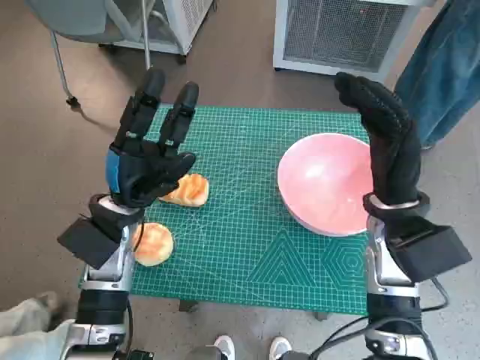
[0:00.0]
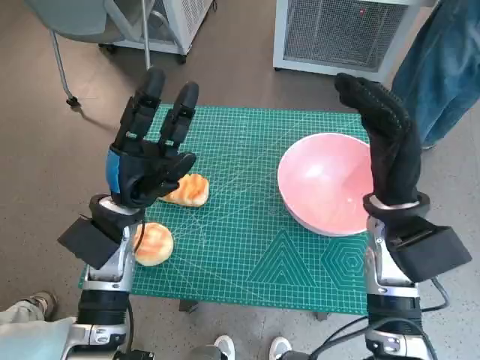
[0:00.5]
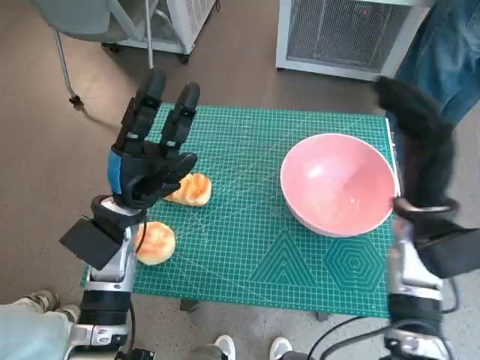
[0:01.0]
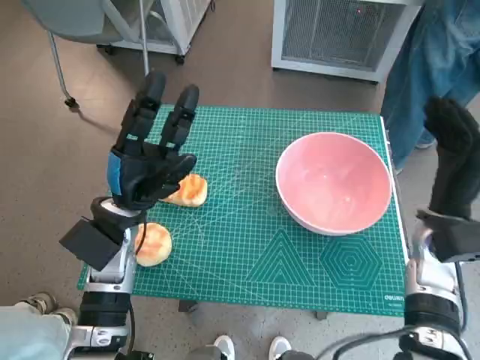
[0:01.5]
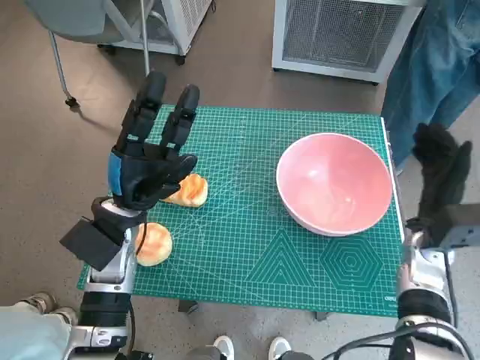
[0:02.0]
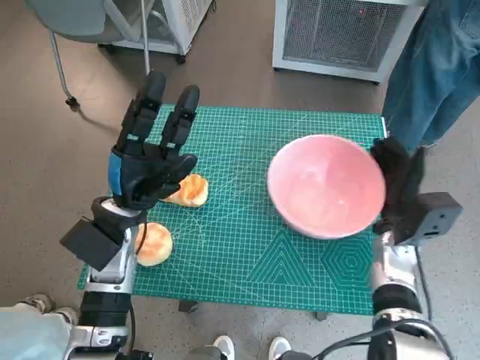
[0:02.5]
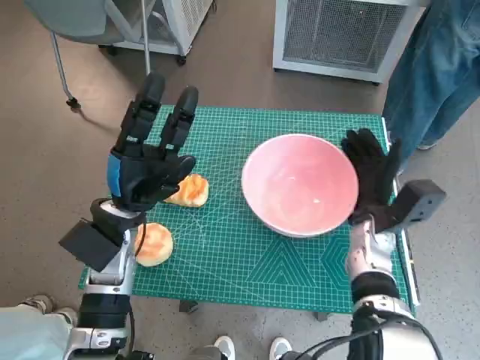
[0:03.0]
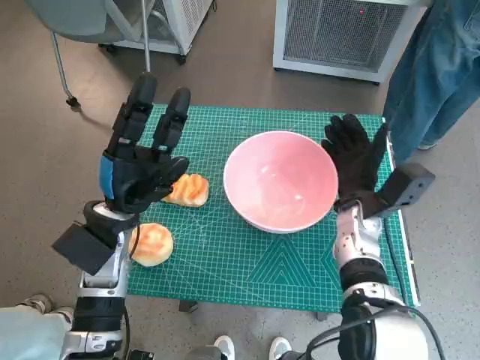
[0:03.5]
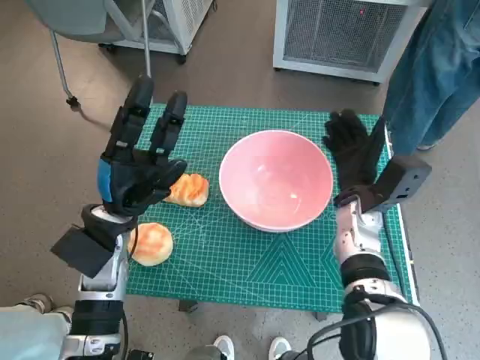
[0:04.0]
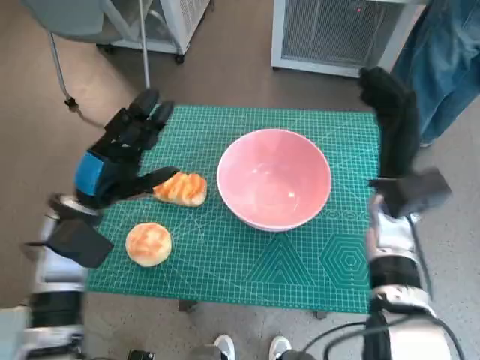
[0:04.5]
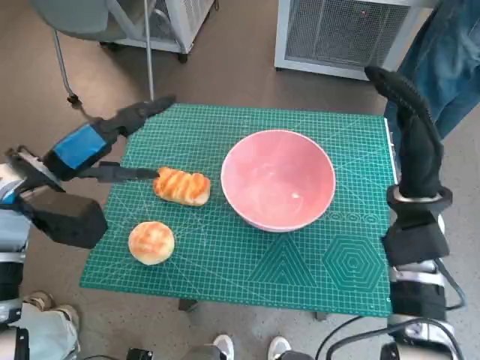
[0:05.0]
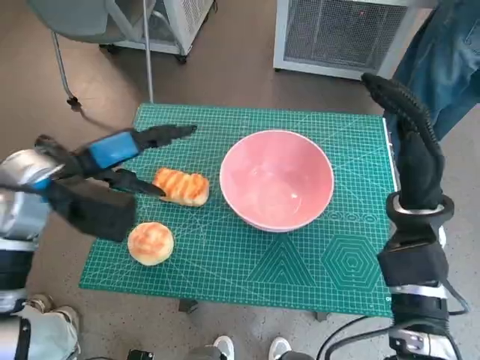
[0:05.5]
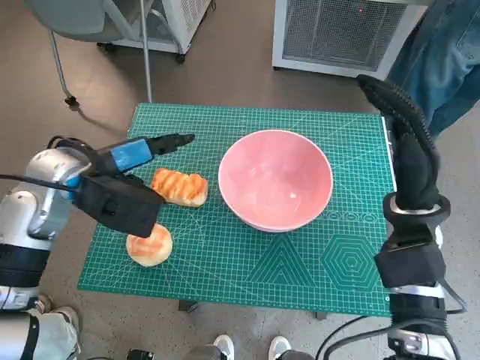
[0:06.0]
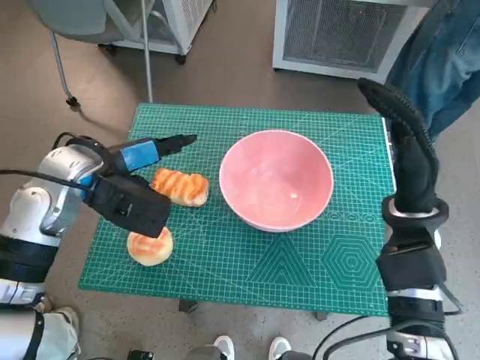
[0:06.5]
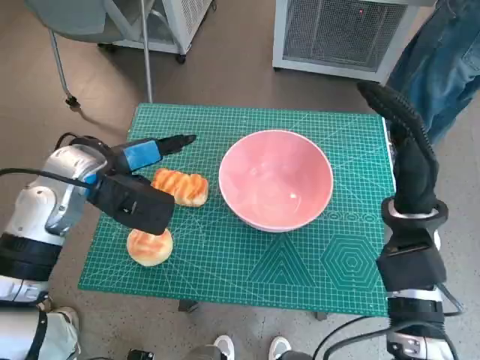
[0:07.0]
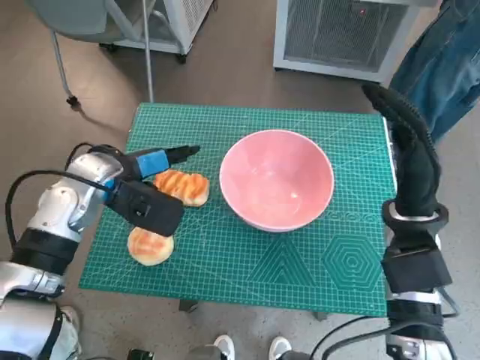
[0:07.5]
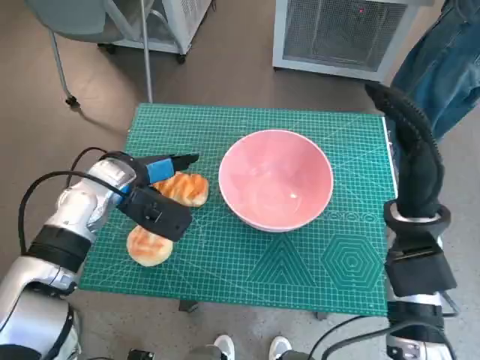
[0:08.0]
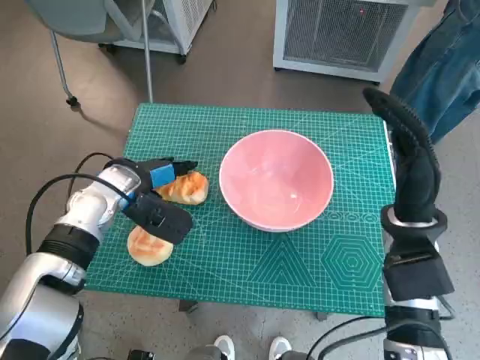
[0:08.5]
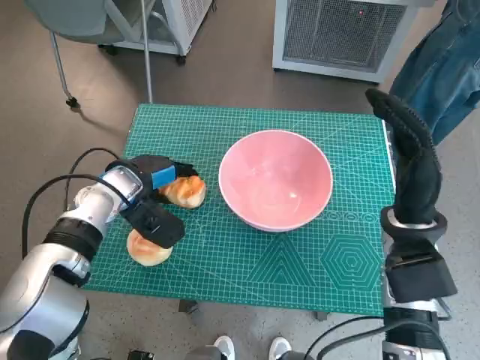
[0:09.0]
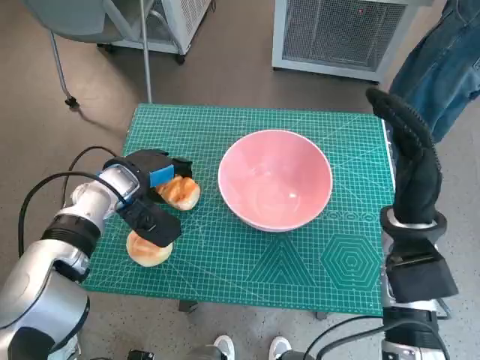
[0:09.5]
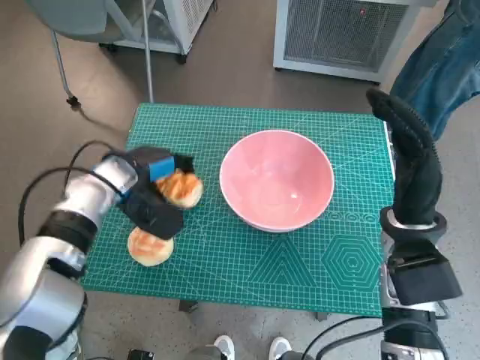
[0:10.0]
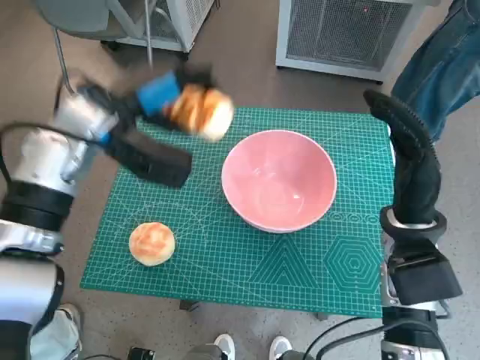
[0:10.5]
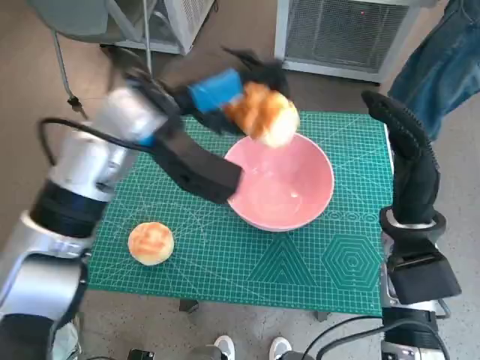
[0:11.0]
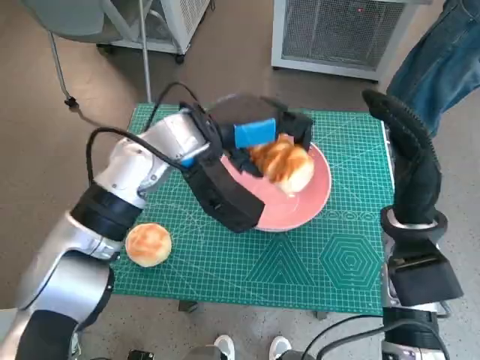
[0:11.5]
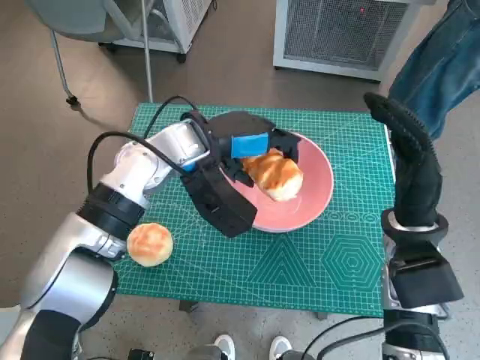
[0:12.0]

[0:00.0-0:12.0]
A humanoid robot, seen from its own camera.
Task of the whole recording: Push the bowl to the center of the table and put the bread into the bowl.
Step, 0:00.0 to 0:04.0: Move the pink bowl to the center of table with right hand.
Step, 0:04.5 to 0:08.5: Grasp the long bread with left hand.
0:02.0 to 0:04.0: The right hand shifts some 10 cm to the left.
0:04.0 to 0:06.0: The left hand travels upward by approximately 10 cm. Meanwhile the right hand shifts about 10 cm upward and backward.
0:06.0 to 0:08.0: The left hand moves downward, approximately 5 cm.
0:08.0 to 0:10.0: There are only small adjustments of the hands.
0:10.0 to 0:12.0: The left hand moves to the right and upward, about 15 cm.

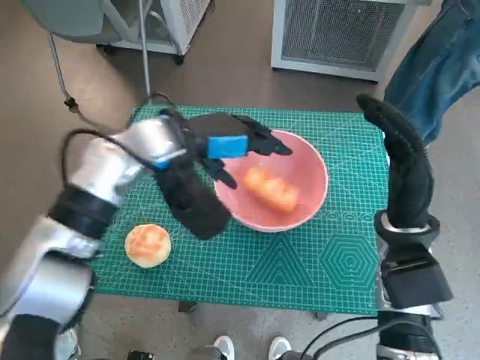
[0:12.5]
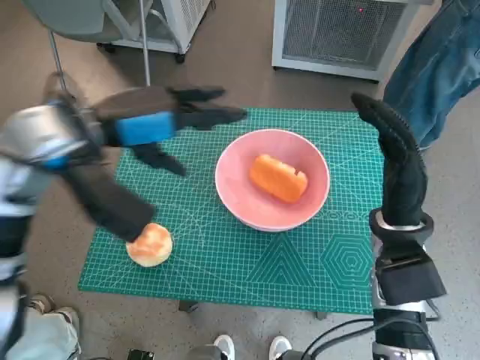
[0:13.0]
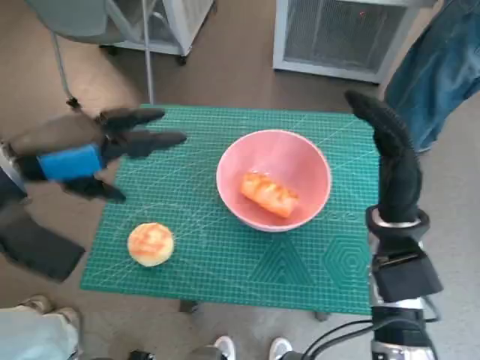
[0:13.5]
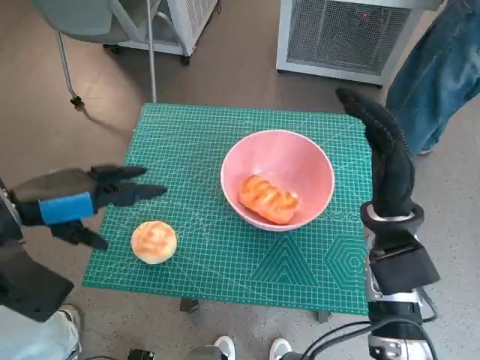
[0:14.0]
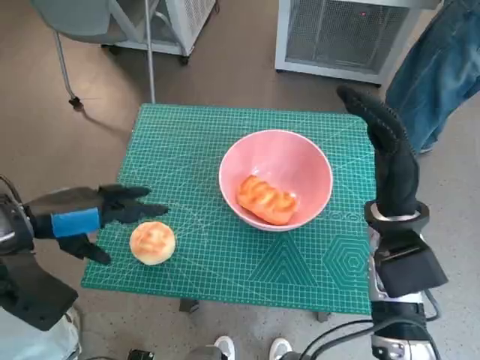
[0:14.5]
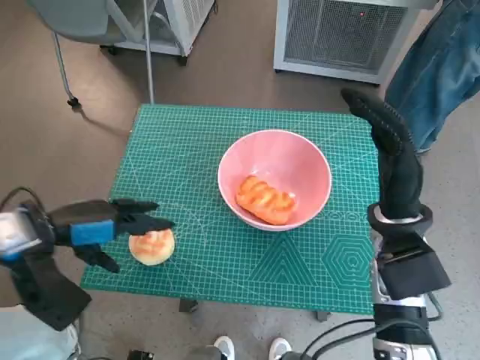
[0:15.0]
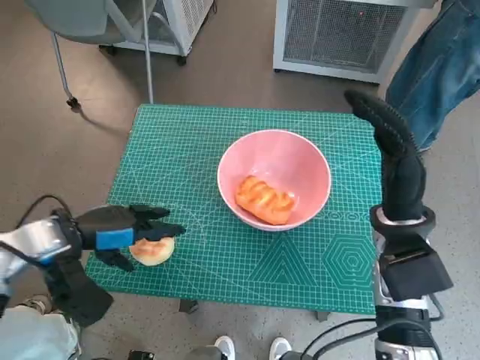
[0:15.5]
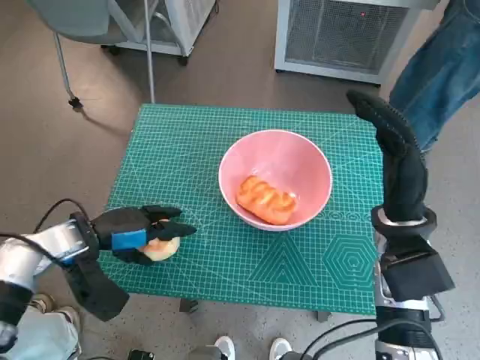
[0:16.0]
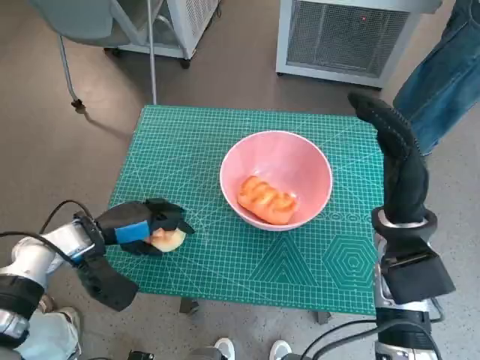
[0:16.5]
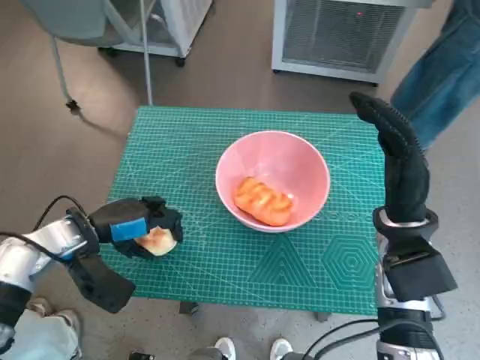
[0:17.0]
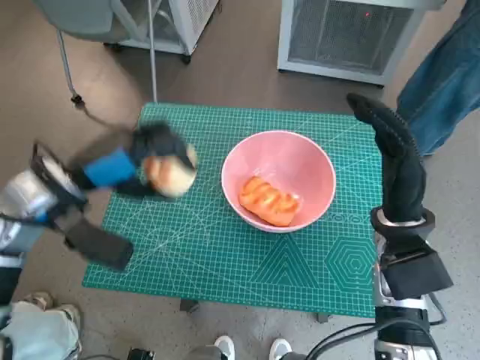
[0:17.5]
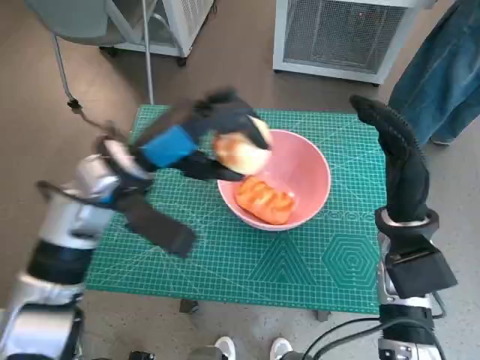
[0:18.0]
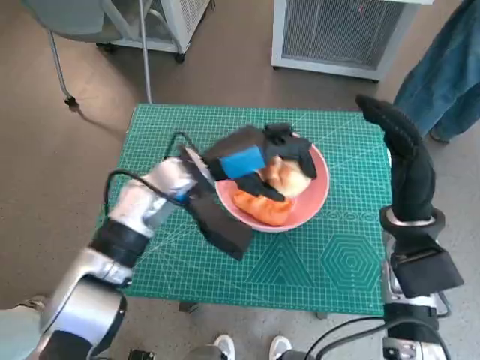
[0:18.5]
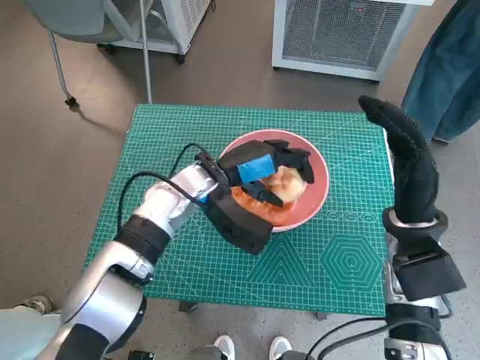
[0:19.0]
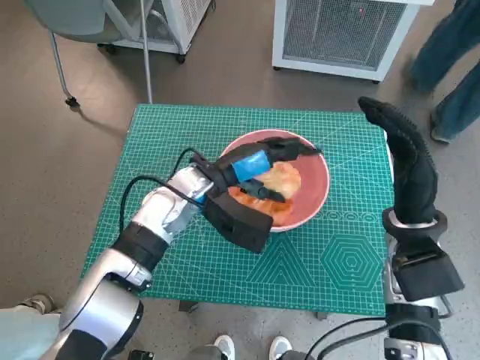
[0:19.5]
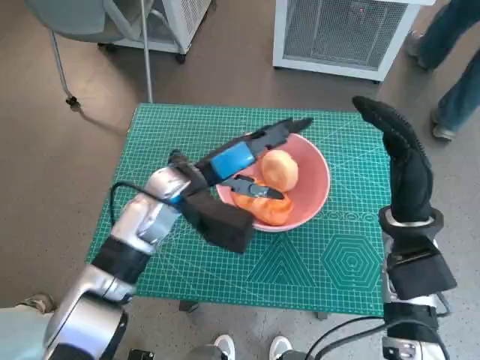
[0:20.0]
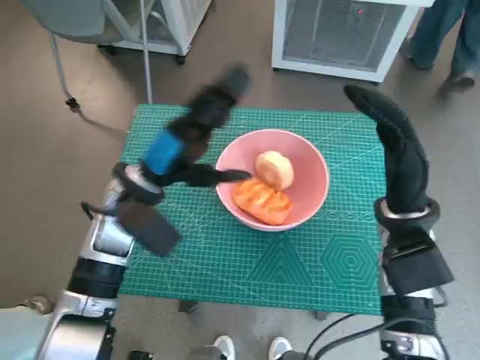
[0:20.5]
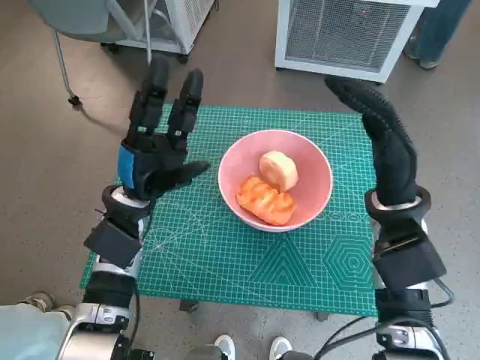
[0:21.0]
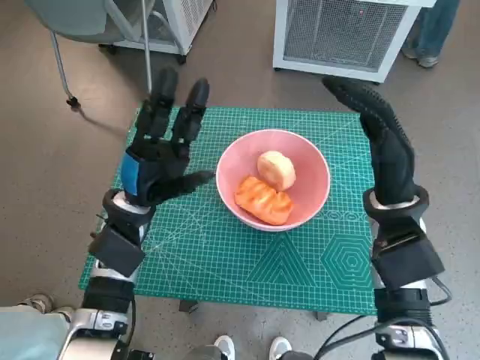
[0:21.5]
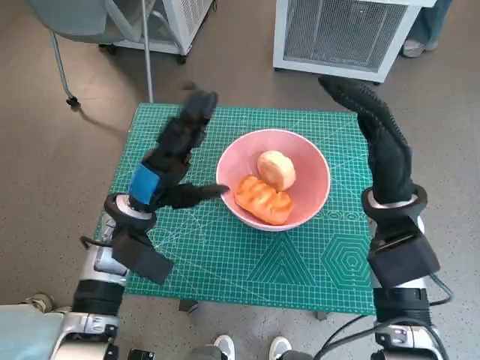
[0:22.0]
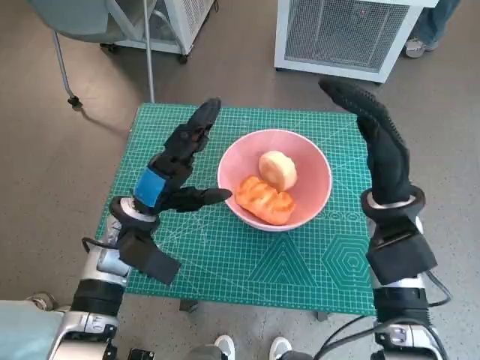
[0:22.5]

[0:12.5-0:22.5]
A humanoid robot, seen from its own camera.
Task of the whole recording: Push the bowl to the center of the table and put the bread into the bowl.
Step, 0:12.5 to 0:16.0: Grasp the round bread with left hand.
Step, 0:16.5 to 0:19.5: Place the round bread in pink bowl with left hand.
0:12.5 to 0:14.5: The left hand travels to the left and backward by approximately 20 cm.
0:14.5 to 0:16.5: The left hand heads downward, covering some 15 cm.
0:16.5 to 0:18.5: The left hand moves to the right and upward, approximately 20 cm.
0:18.5 to 0:20.5: The left hand goes some 5 cm to the left.
0:20.5 to 0:22.5: The left hand heads downward, covering approximately 5 cm.

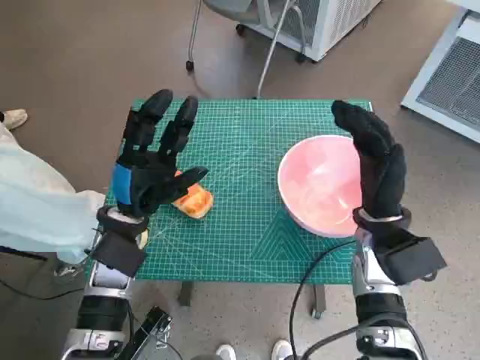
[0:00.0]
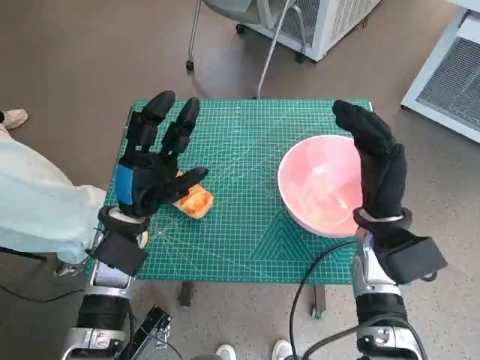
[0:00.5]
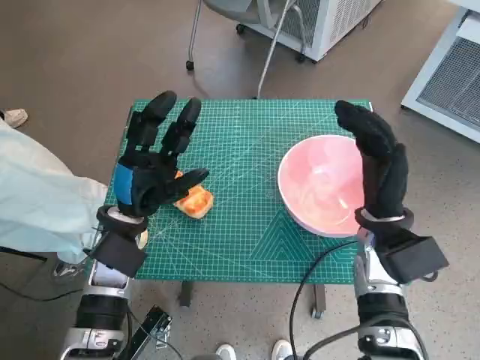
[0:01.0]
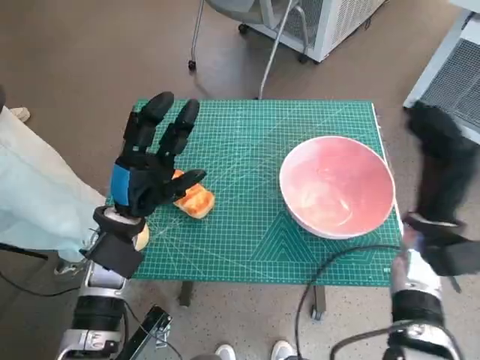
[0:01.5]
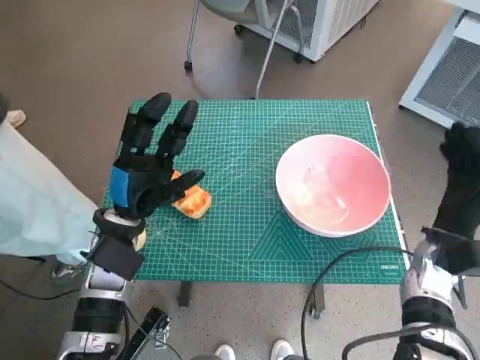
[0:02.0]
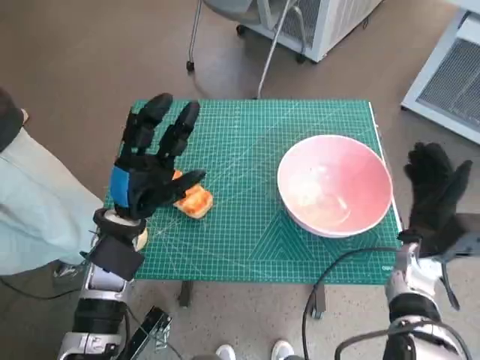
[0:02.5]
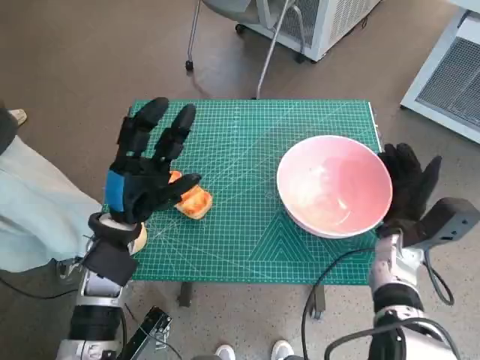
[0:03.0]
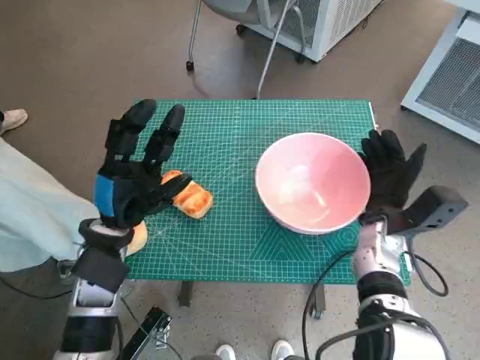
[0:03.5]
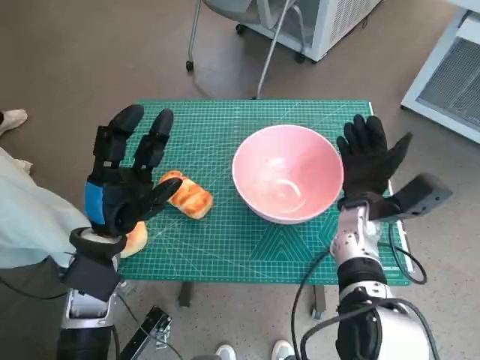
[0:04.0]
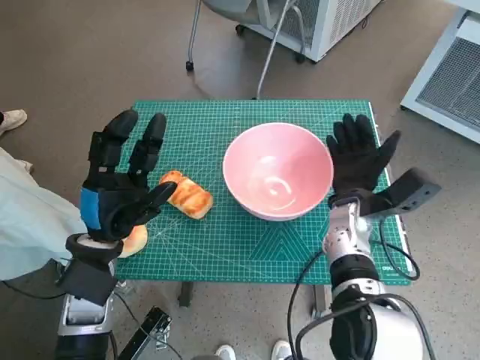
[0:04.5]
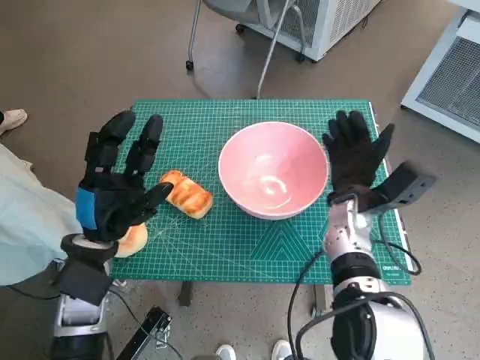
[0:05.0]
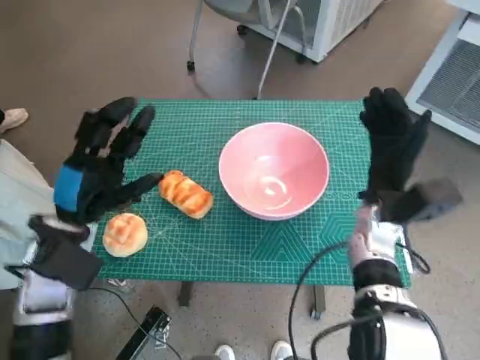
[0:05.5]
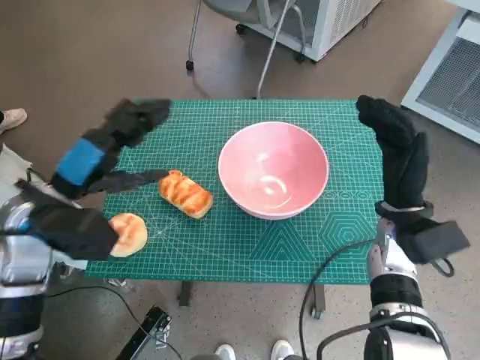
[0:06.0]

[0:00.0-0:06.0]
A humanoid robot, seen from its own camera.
Task of the whole recording: Push the bowl to the center of the table and put the bread into the bowl.
Step, 0:00.0 to 0:05.0: Move the pink bowl to the center of table with right hand.
0:02.0 to 0:04.0: The right hand shifts some 10 cm to the left.
0:04.0 to 0:06.0: The right hand ends up approximately 5 cm from where it was. Meanwhile the left hand heads upward, covering some 5 cm.
